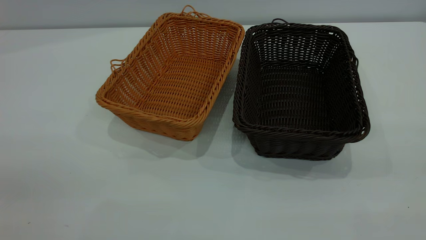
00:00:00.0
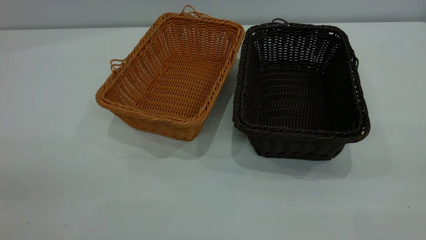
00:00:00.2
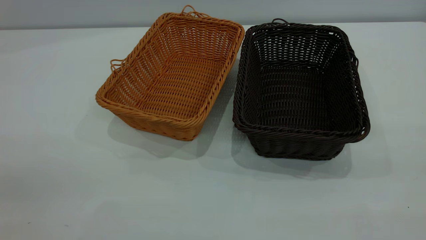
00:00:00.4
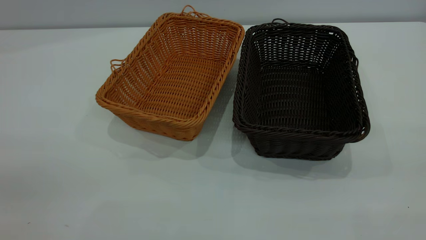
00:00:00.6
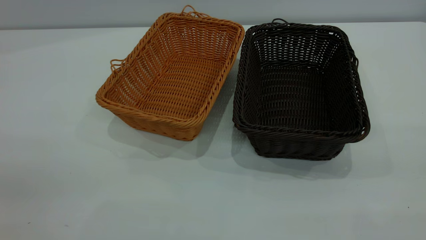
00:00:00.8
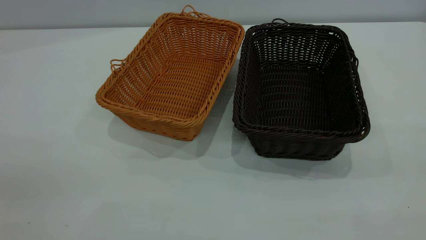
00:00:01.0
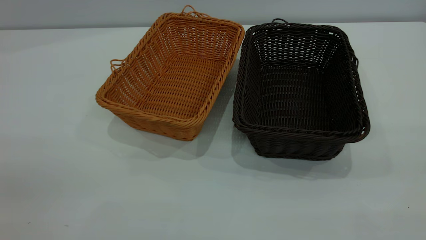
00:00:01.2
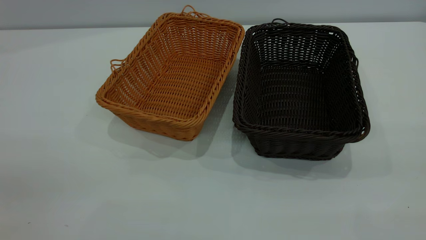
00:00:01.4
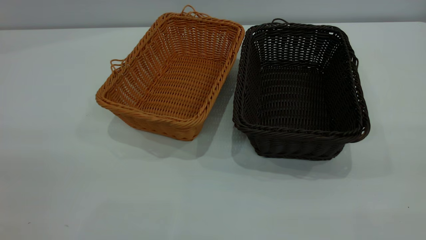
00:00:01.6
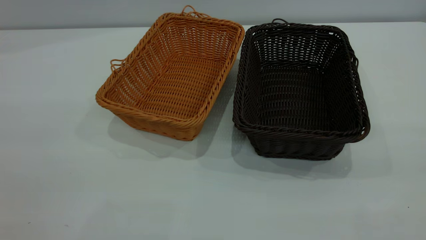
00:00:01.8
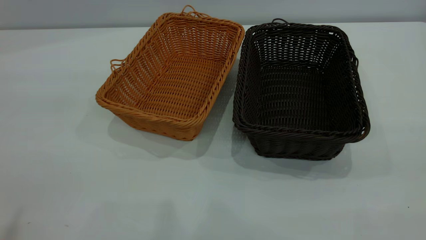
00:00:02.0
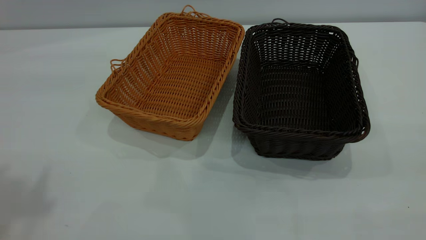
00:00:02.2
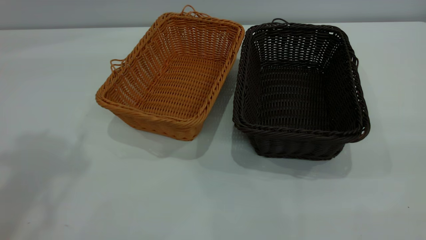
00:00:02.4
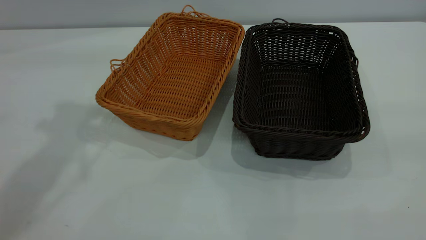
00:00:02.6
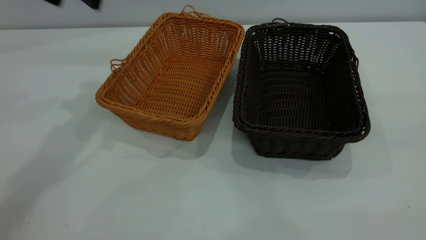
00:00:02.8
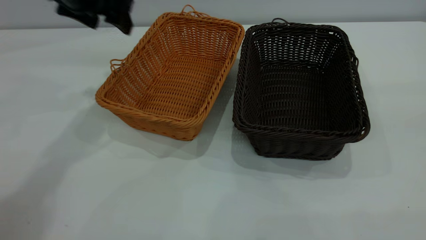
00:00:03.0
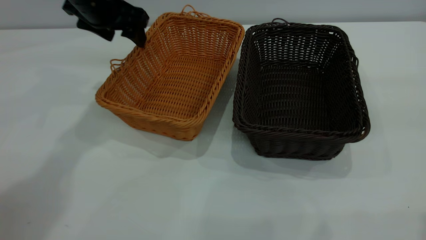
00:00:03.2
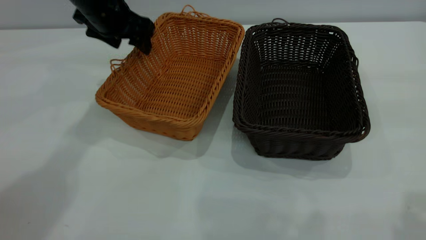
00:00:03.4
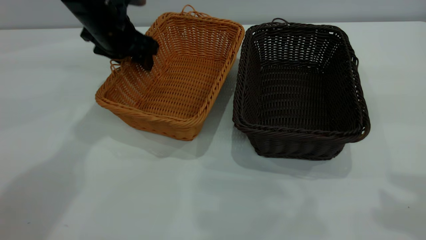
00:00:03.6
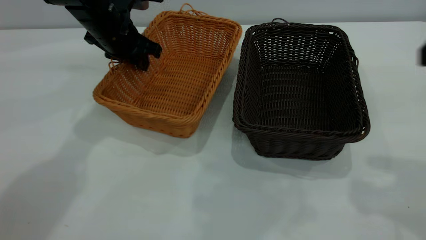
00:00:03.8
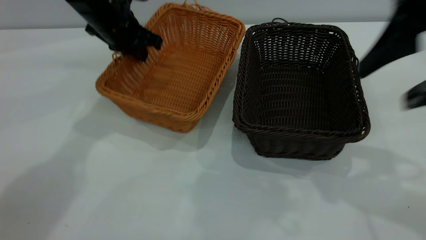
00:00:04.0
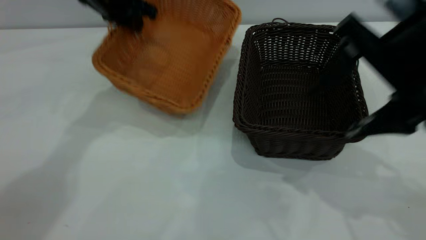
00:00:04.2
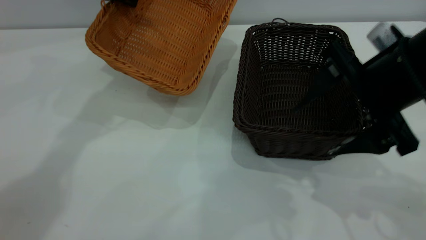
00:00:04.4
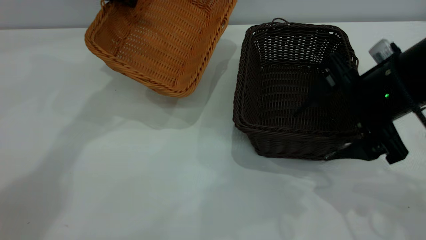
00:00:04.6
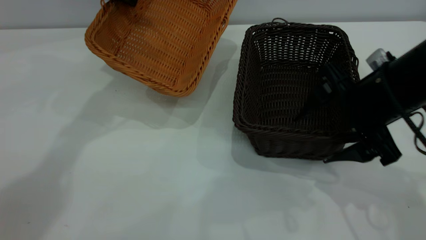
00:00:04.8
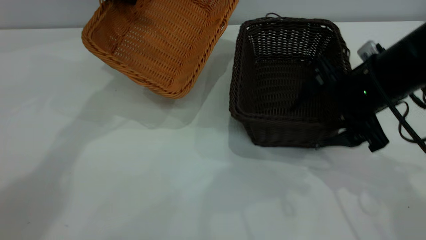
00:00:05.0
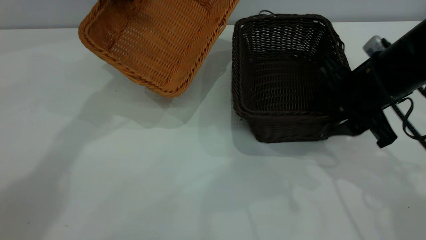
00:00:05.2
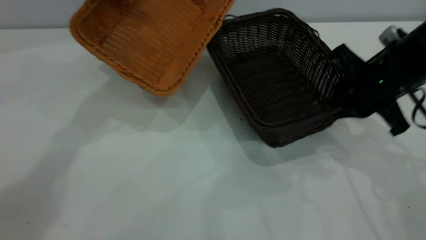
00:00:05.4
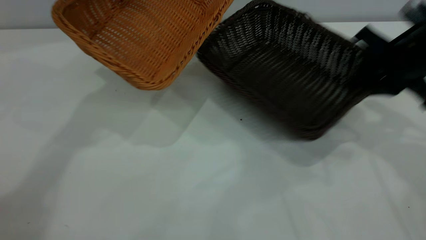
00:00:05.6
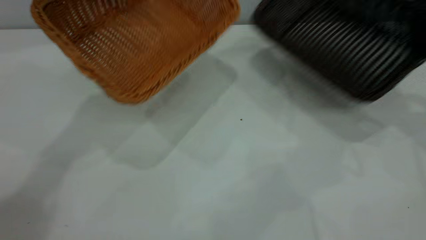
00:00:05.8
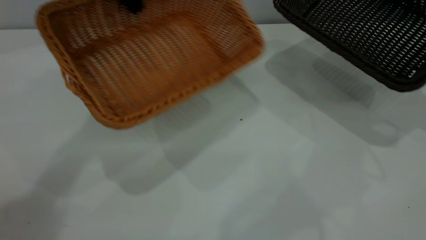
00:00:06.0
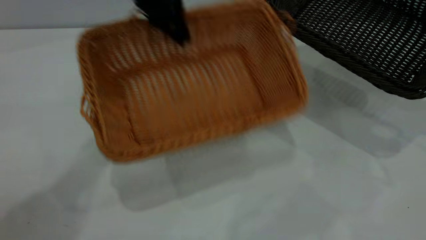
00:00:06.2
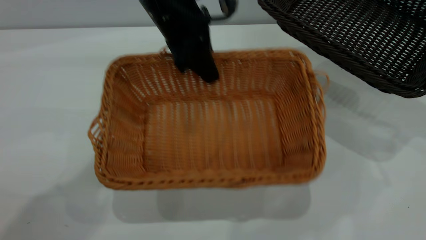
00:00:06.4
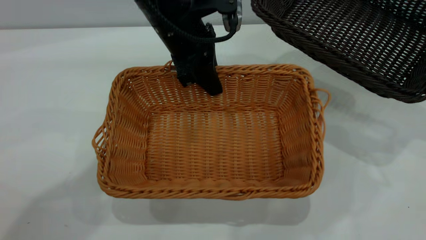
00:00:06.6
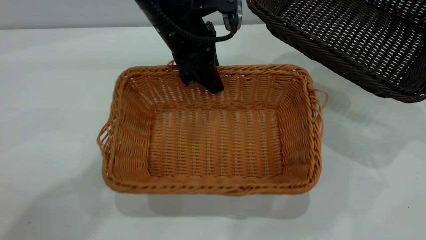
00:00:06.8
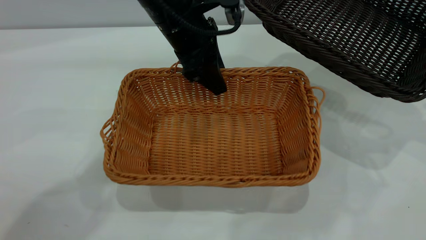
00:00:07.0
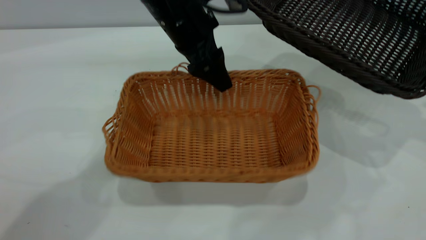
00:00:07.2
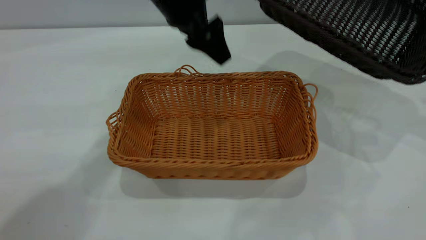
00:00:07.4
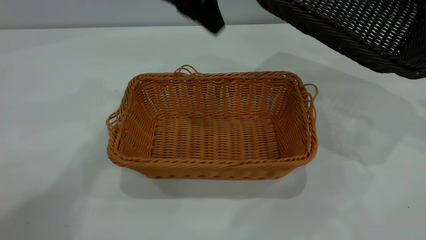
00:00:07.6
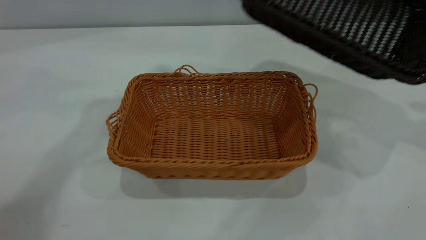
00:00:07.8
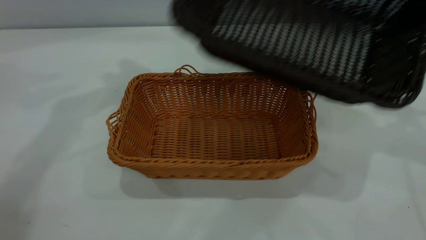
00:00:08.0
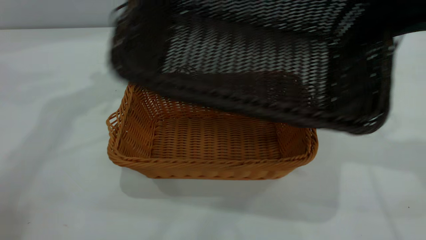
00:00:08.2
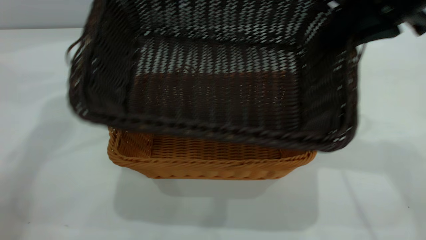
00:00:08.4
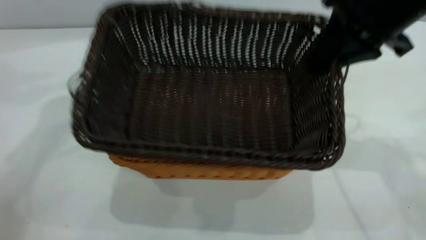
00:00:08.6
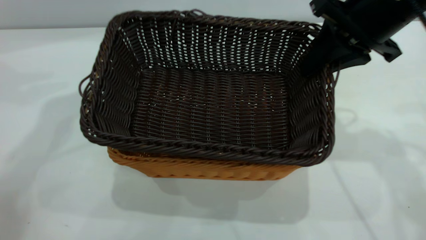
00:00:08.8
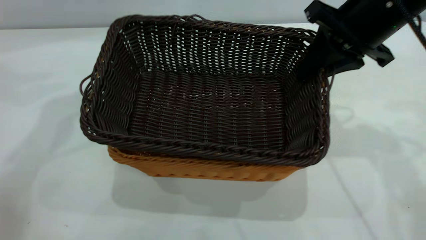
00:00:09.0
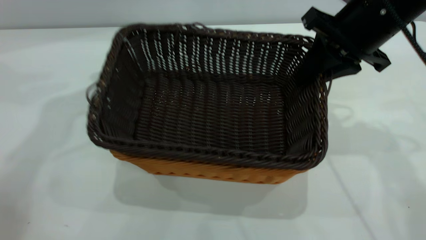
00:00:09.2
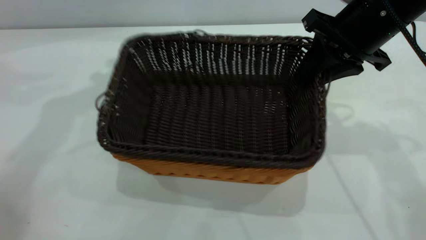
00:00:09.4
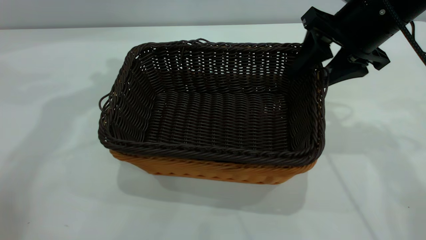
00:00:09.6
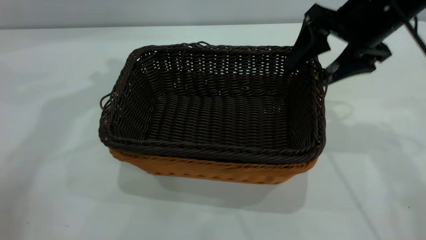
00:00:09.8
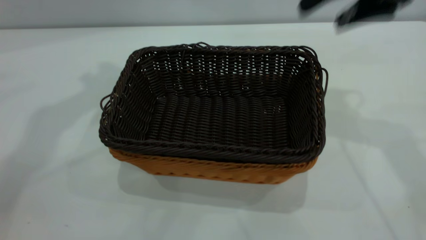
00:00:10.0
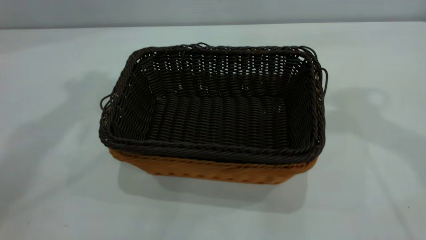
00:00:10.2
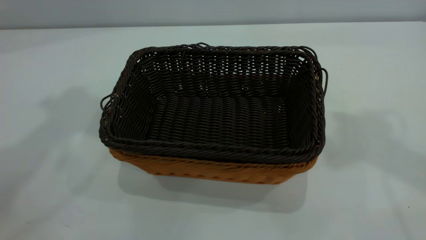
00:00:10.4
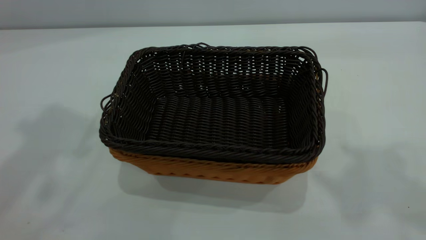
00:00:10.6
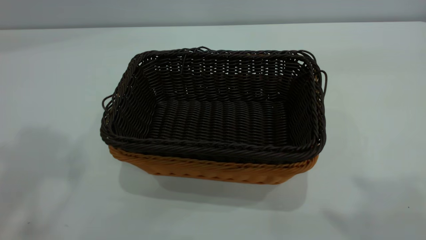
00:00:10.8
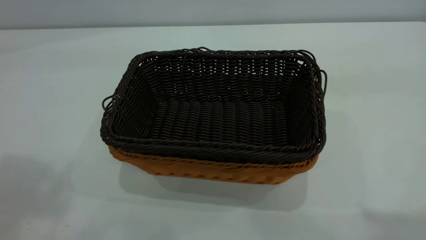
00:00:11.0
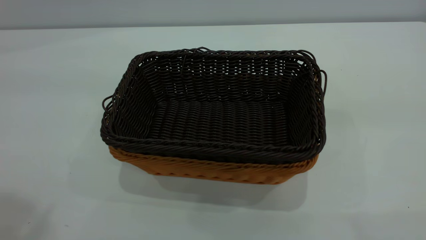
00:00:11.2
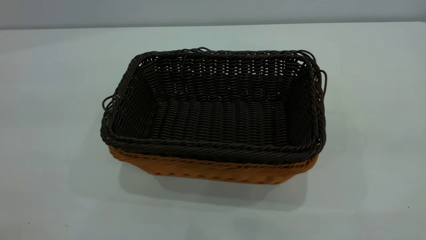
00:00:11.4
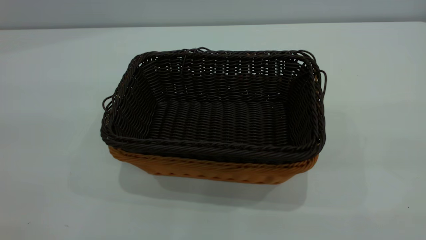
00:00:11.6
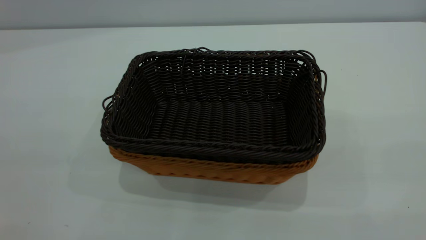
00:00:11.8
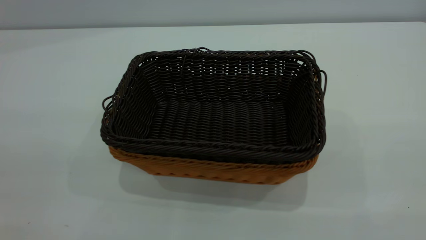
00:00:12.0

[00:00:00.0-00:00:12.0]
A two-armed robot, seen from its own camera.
Task of the whole recording: the left gripper grasp the brown basket and place it in the center of the table, the right gripper grasp the black basket and place it inside the brown one.
Step, 00:00:00.0 to 00:00:06.0: Pick up the light basket with the right gripper.
Step, 00:00:06.2 to 00:00:07.4: Place the light-colored basket in the center.
Step, 00:00:07.8 to 00:00:09.8: Place the dark basket on top of the light basket.
00:00:01.6 to 00:00:03.0: The left gripper shifts roughly 40 cm forward.
00:00:03.0 to 00:00:04.4: The right gripper is displaced downward, forward and to the left by some 25 cm. Meanwhile the left gripper shifts approximately 5 cm forward, moves about 10 cm downward and comes back, and closes its fingers.
00:00:04.4 to 00:00:06.0: The left gripper heads backward, covering roughly 5 cm. The right gripper travels to the right by approximately 20 cm, and closes up.
00:00:06.0 to 00:00:07.6: The left gripper moves about 10 cm downward and comes back, and opens its fingers.
00:00:07.6 to 00:00:09.0: The right gripper travels to the left by about 20 cm, while the left gripper shifts about 15 cm to the left and upward.
00:00:09.0 to 00:00:10.4: The left gripper shifts approximately 20 cm upward and backward. The right gripper travels upward by approximately 25 cm, and opens.
00:00:10.4 to 00:00:12.0: Both grippers travel together backward, roughly 30 cm.
